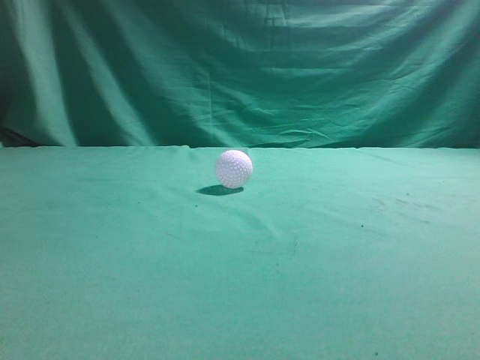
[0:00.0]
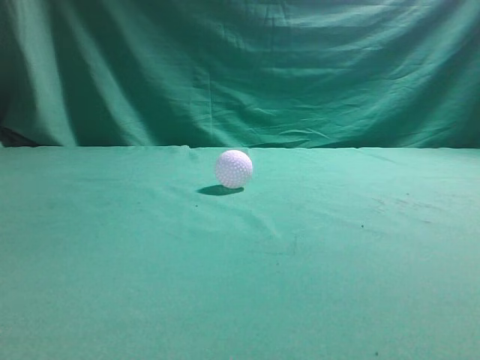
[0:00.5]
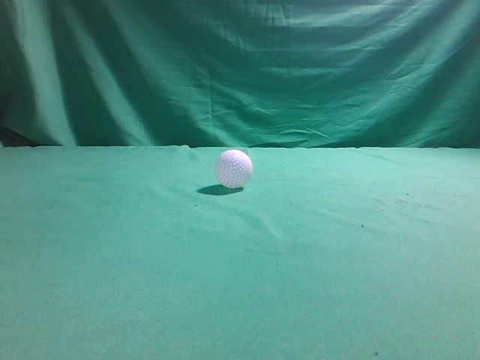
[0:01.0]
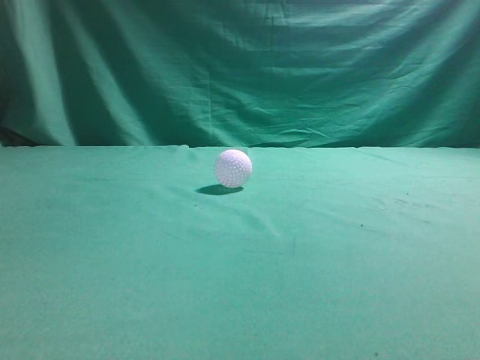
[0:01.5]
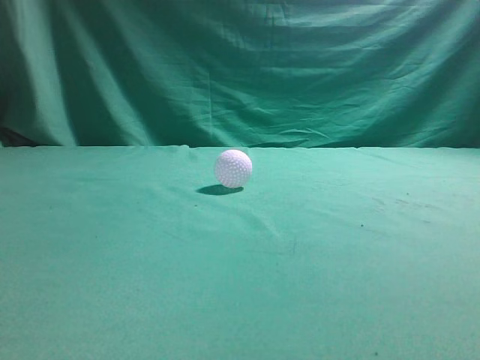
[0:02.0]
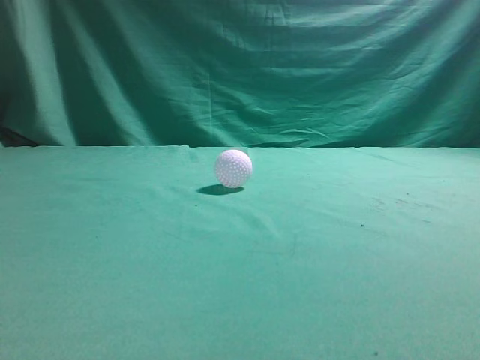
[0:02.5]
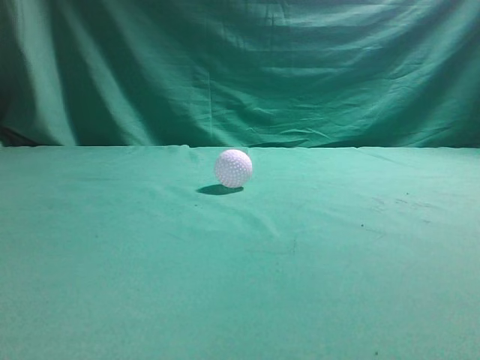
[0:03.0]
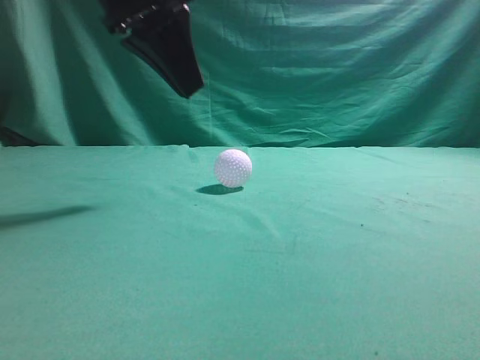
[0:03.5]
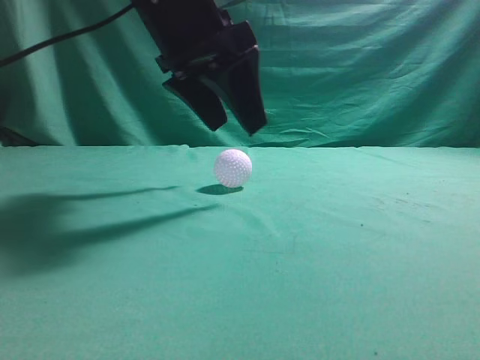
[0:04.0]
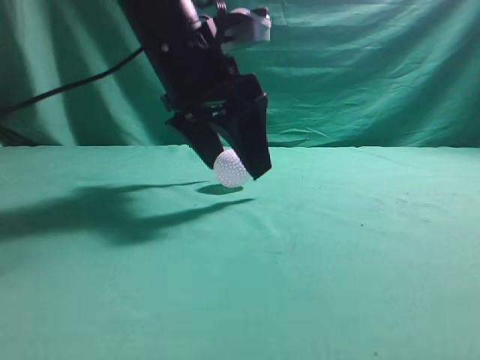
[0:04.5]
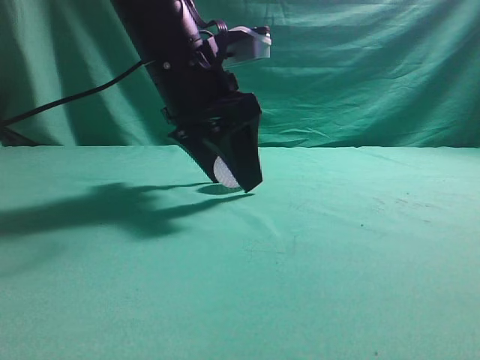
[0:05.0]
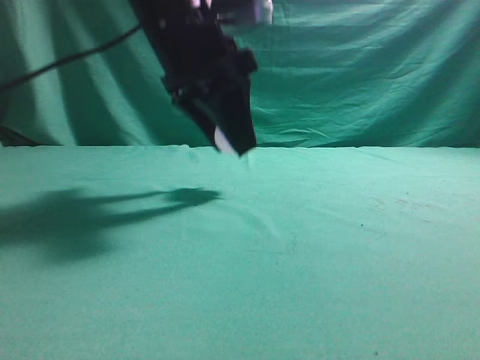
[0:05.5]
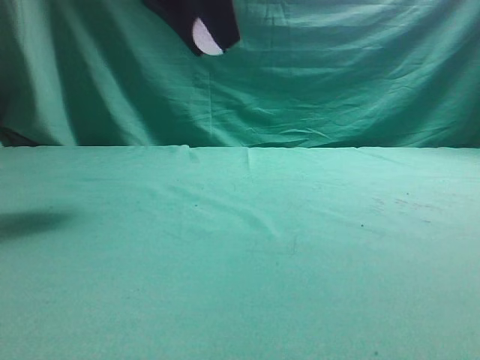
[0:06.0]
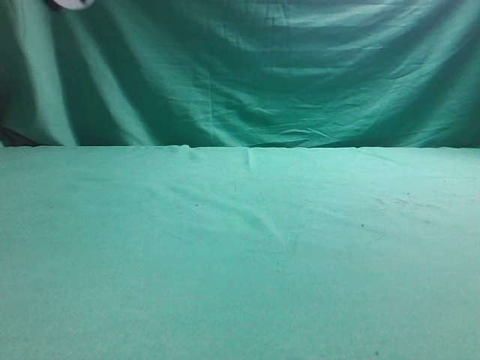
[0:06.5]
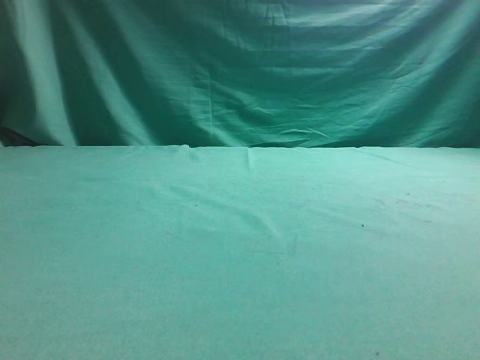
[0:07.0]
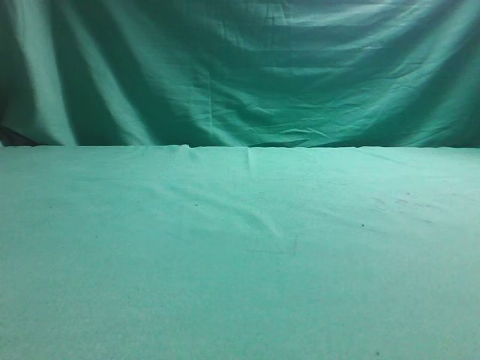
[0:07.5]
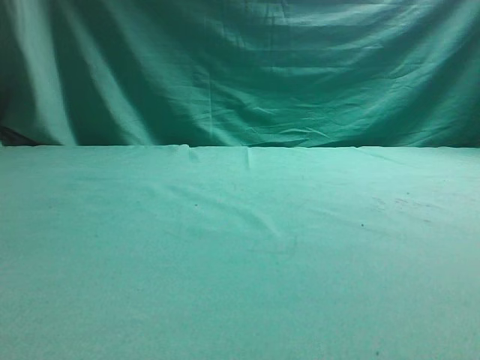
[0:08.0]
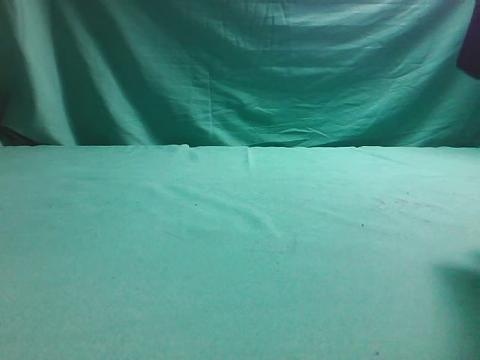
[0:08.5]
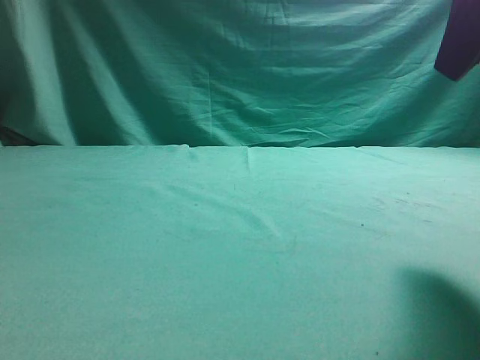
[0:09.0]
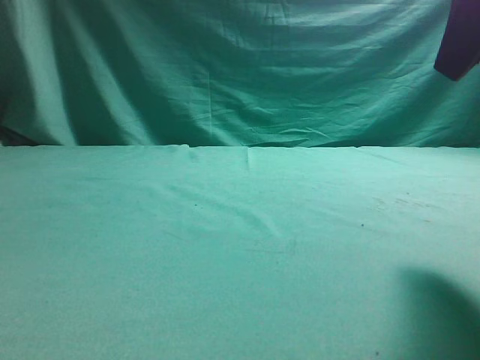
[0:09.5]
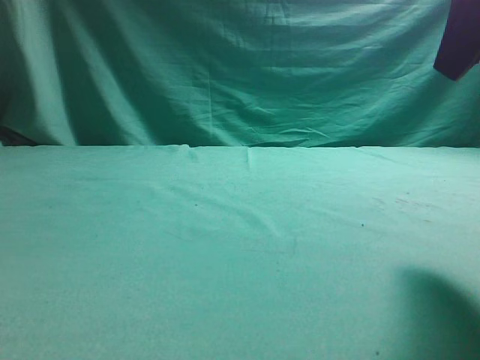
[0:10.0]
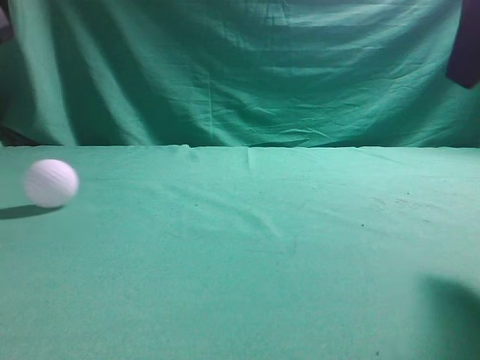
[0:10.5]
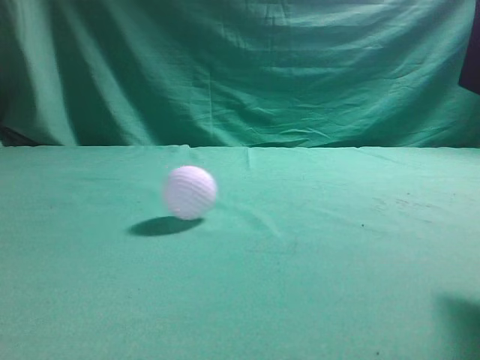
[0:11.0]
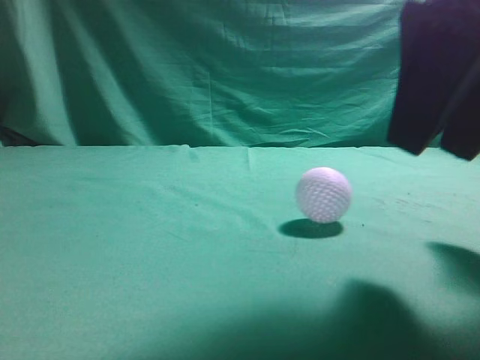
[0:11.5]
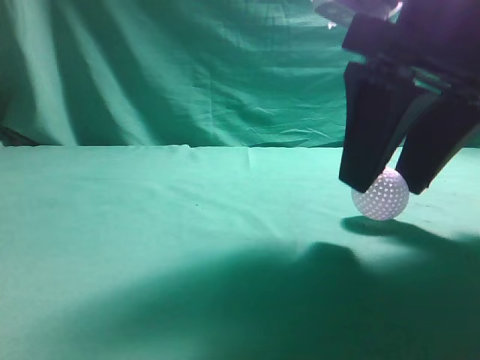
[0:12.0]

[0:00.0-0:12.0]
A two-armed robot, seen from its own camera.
Task of the whole recording: pick up the ball and place it on the plate, then pick up the ball from the plate and put it in the center of the table.
Step, 0:00.0 to 0:05.5: Grab the spherical object with your left arm.
Step, 0:06.0 to 0:09.5: Place the sphere on the white object.
0:02.0 to 0:04.0: The left gripper travels forward and to the right by some 35 cm, and opens.
0:04.0 to 0:06.0: The left gripper goes approximately 5 cm upward.
0:06.0 to 0:08.0: The right gripper travels forward, upward and to the left by some 15 cm. Meanwhile the left gripper moves to the left, approximately 25 cm.
0:08.0 to 0:10.0: The right gripper opens up.
0:10.0 to 0:12.0: The right gripper is displaced to the left and downward by approximately 10 cm, while the left gripper goes about 20 cm upward and backward, and closes up.

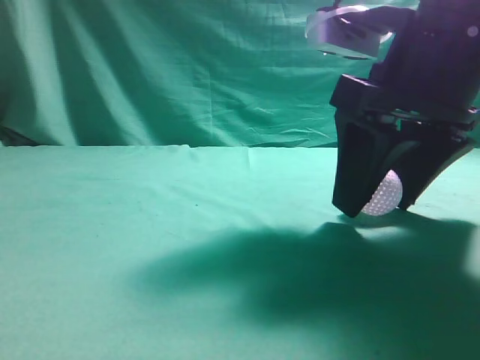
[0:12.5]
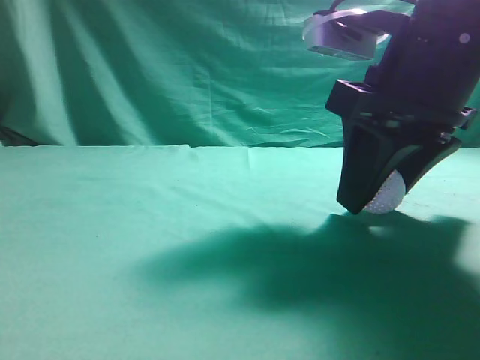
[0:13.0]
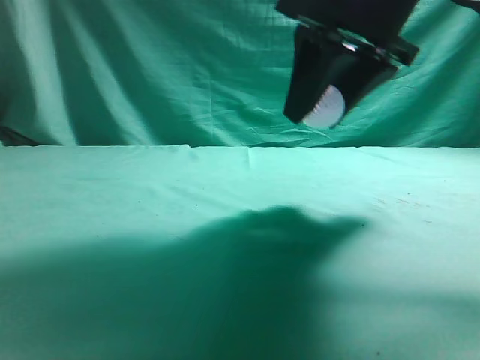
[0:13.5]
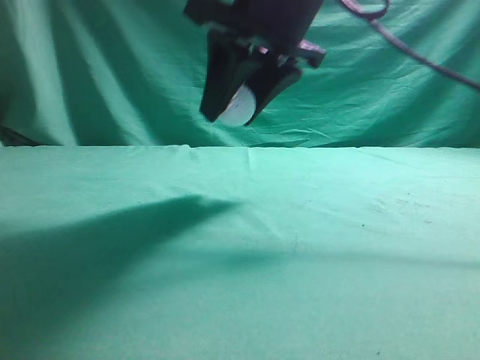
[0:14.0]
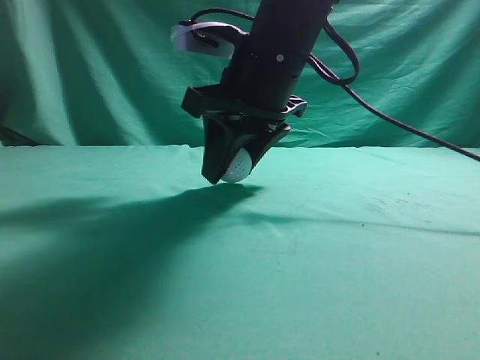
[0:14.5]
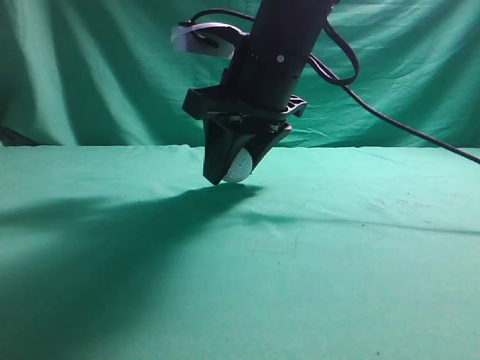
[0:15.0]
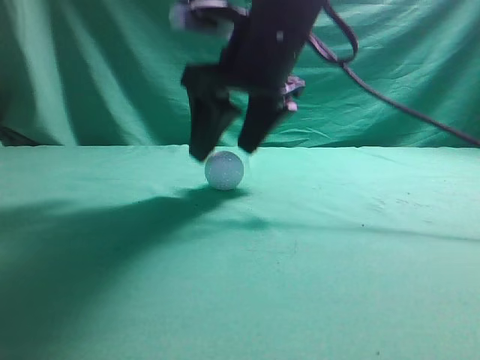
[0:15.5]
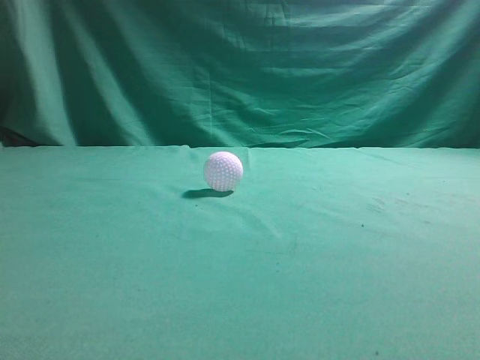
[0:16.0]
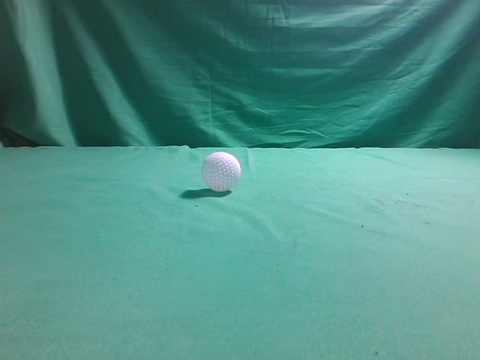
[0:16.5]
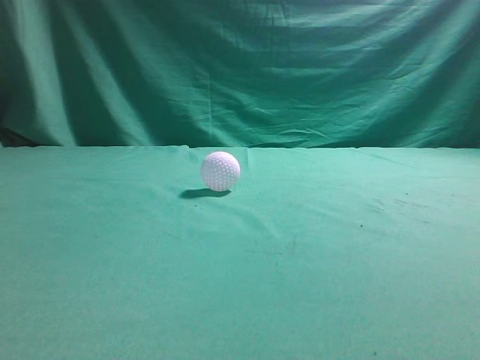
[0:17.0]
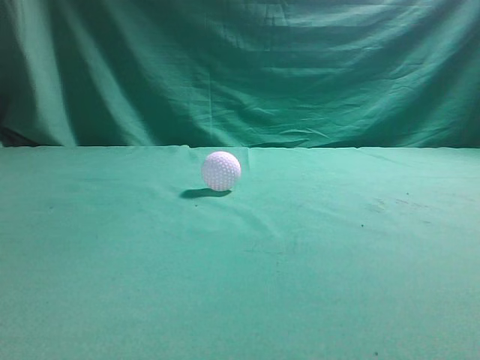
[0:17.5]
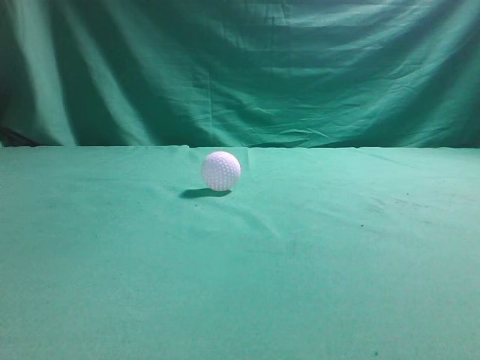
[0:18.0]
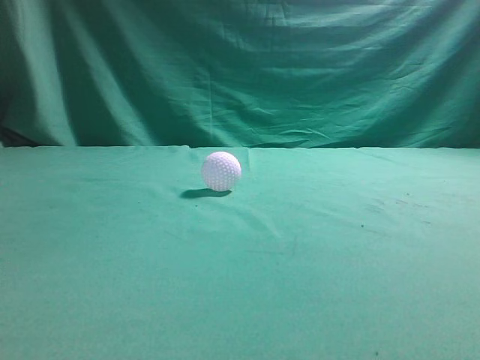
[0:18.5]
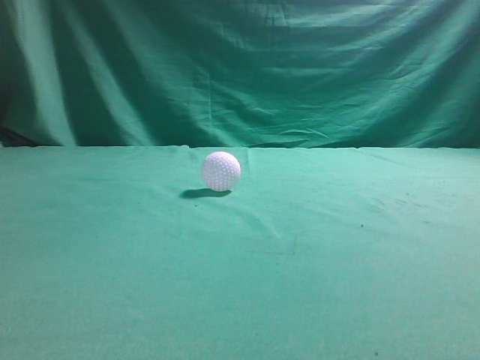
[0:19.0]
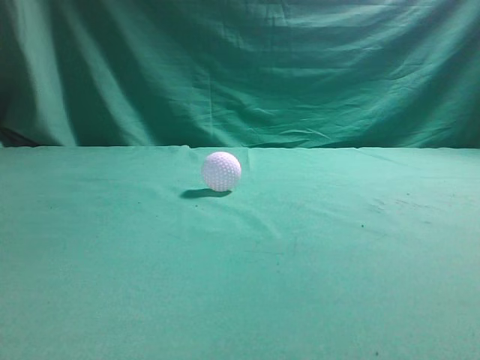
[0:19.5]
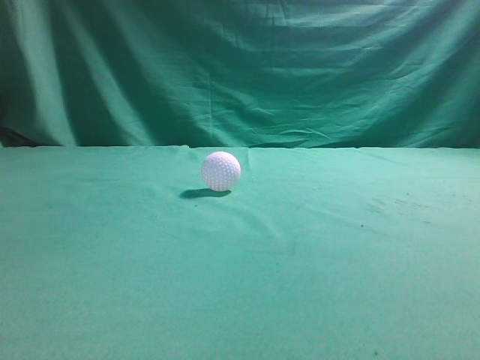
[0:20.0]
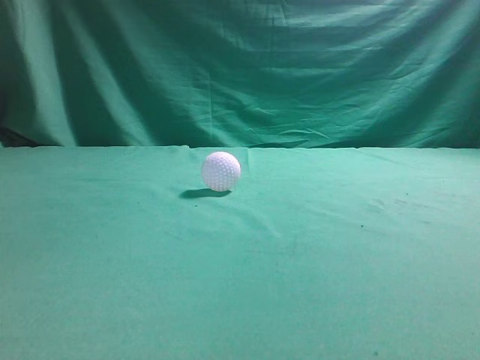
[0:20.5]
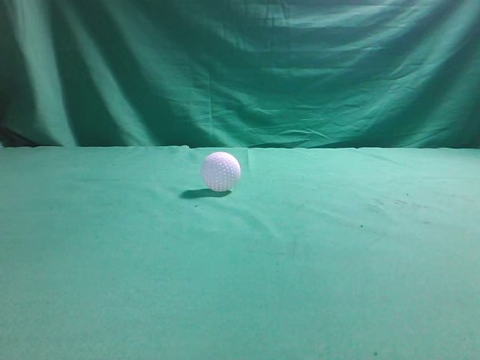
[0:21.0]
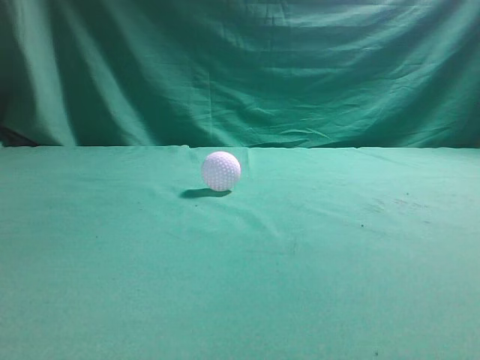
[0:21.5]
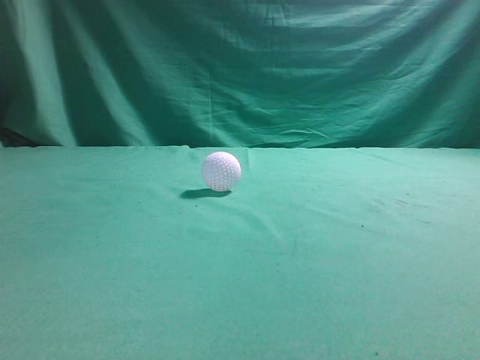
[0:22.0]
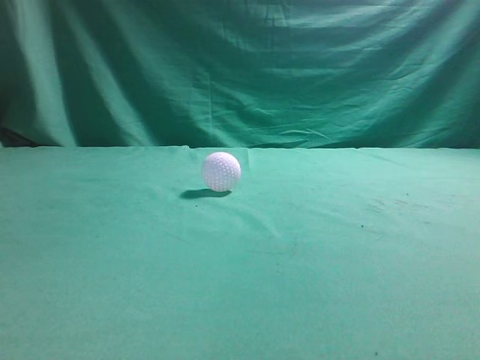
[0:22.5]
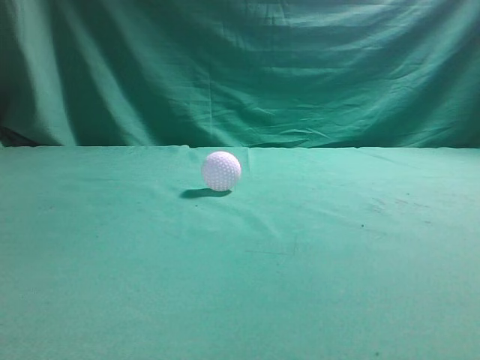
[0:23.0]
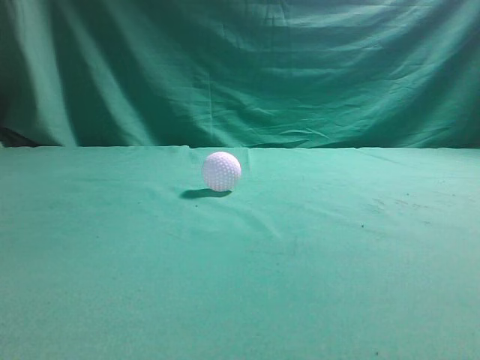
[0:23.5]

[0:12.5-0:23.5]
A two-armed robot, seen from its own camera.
Task of the whole recording: pick up the ball and place it on the plate, then pick up the ball from the plate and put it in the center of the table.
Step, 0:13.5 to 0:15.5: Put the picked-up object on the table.
0:12.5 to 0:14.5: The left gripper shifts roughly 15 cm backward. The right gripper is displaced to the left and forward by roughly 15 cm.
0:14.5 to 0:16.0: The right gripper moves upward, roughly 20 cm, and closes its fingers.
